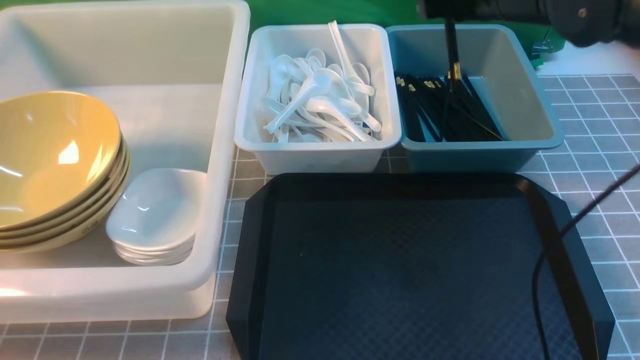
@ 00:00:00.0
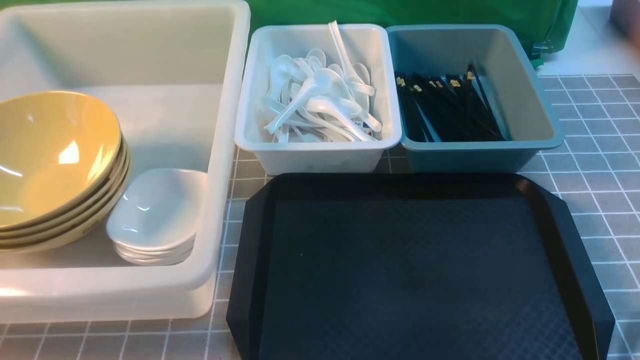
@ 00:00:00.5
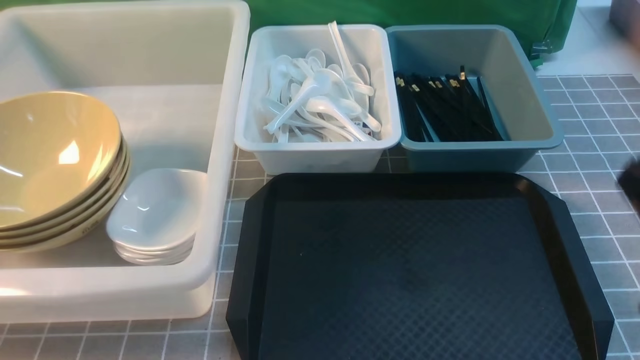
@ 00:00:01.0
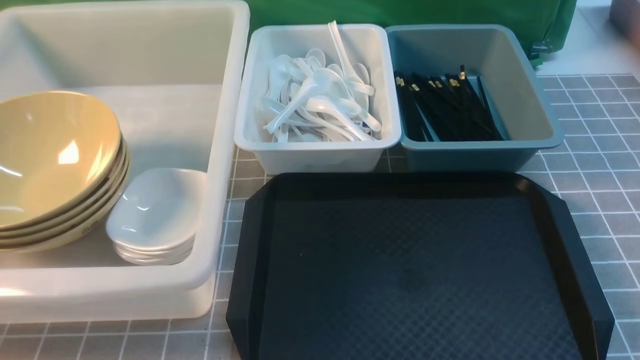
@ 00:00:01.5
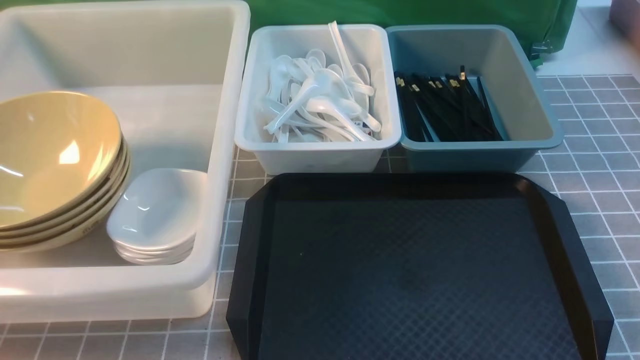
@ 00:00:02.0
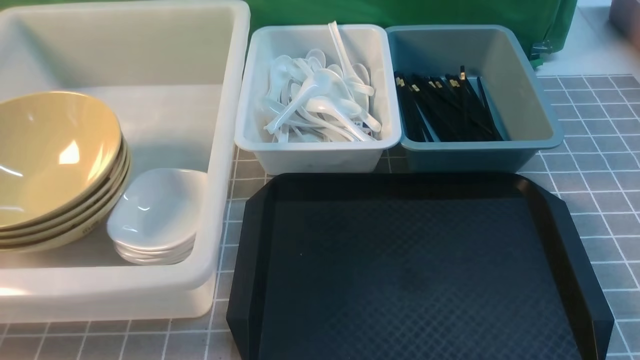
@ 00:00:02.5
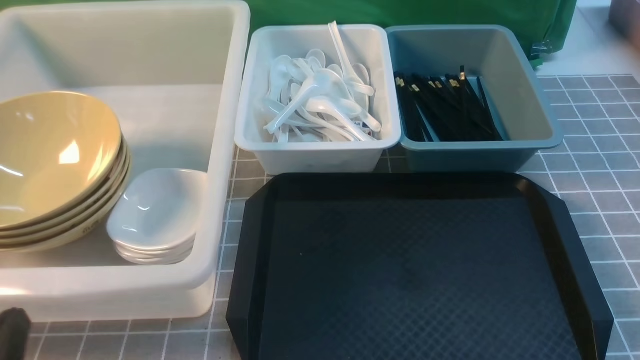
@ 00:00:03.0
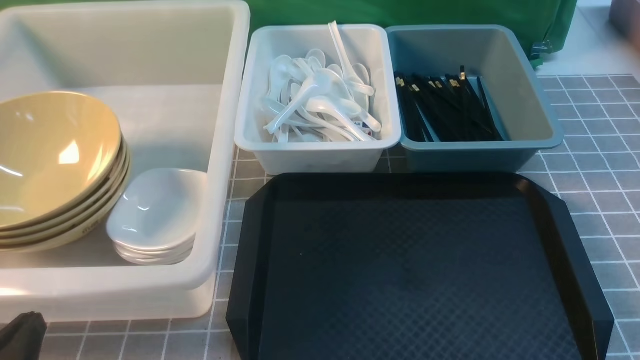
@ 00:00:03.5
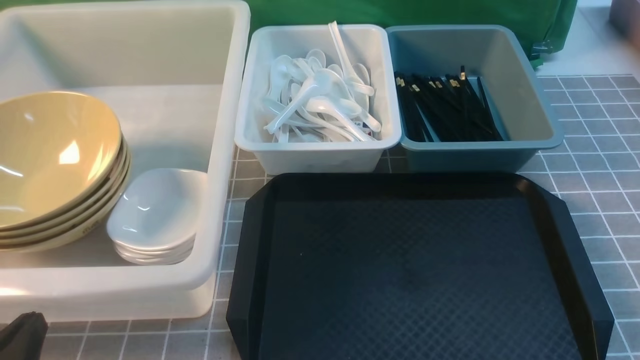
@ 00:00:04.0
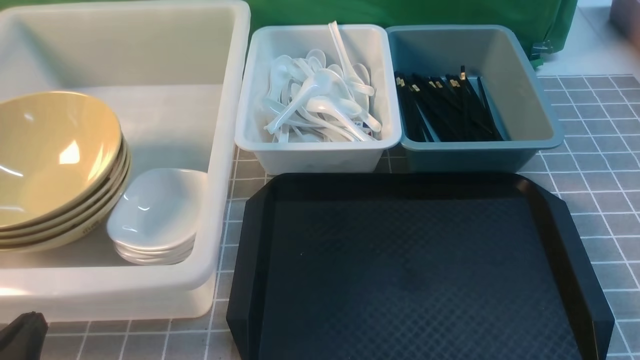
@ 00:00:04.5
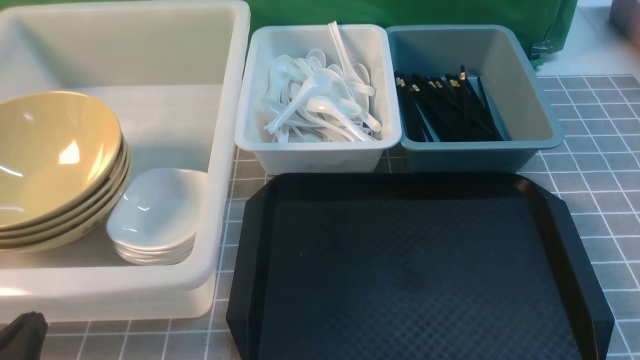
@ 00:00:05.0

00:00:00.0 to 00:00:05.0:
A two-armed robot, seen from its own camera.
Task of the whole recording: on grey table put chopsticks spoon bowls plates into blue grey white boxes.
00:00:00.0 to 00:00:02.5: The right gripper is displaced backward and downward by approximately 40 cm.
00:00:02.5 to 00:00:05.0: The left gripper shifts some 10 cm downward.
